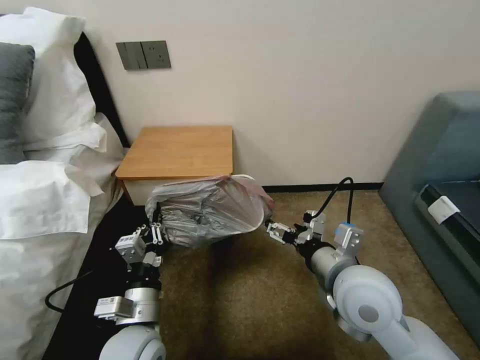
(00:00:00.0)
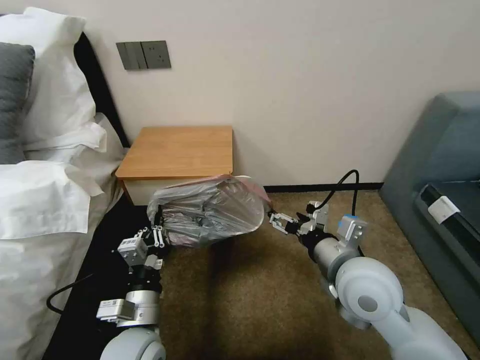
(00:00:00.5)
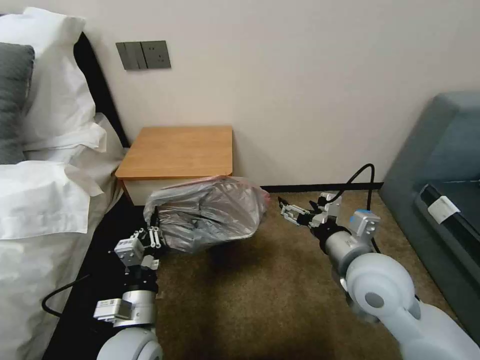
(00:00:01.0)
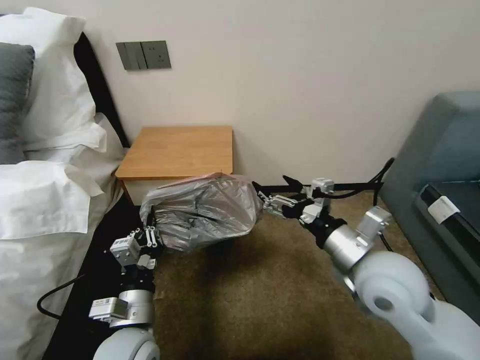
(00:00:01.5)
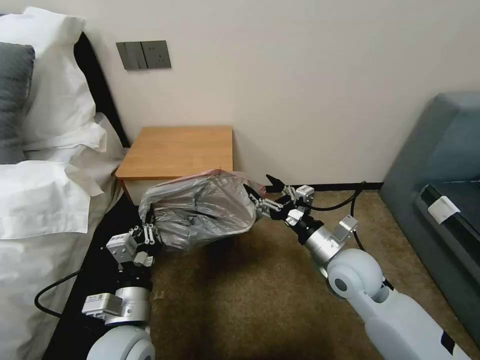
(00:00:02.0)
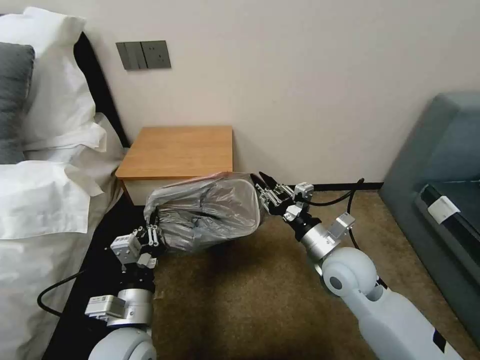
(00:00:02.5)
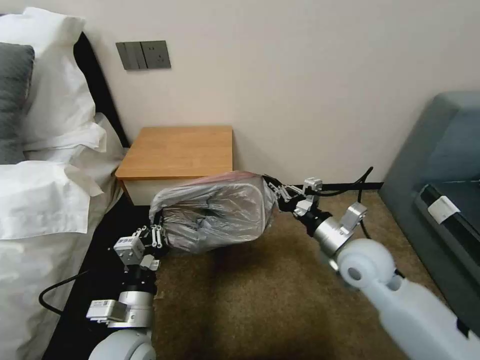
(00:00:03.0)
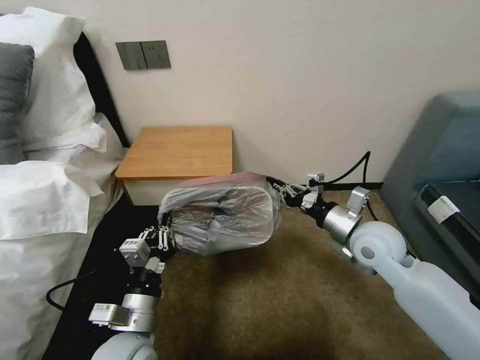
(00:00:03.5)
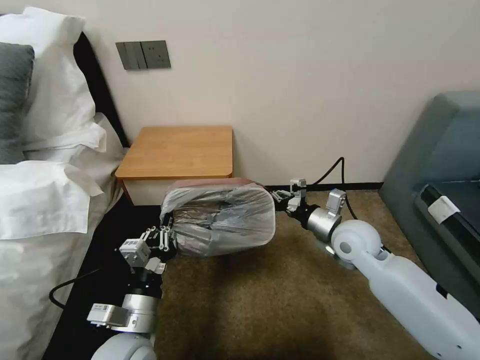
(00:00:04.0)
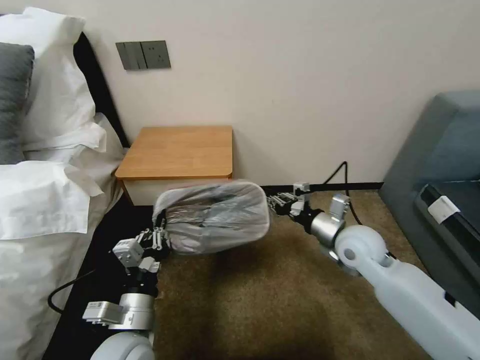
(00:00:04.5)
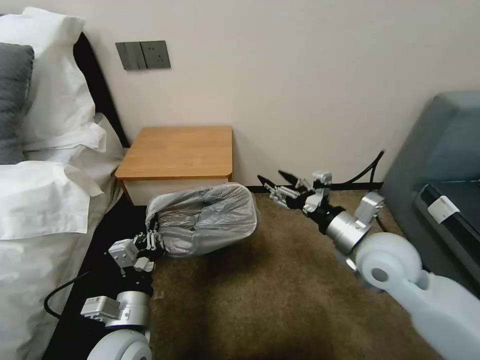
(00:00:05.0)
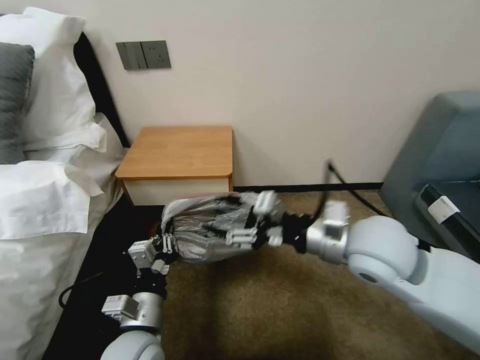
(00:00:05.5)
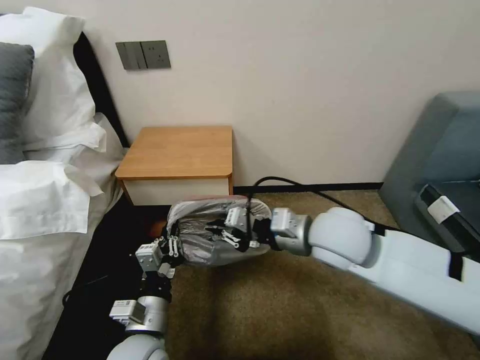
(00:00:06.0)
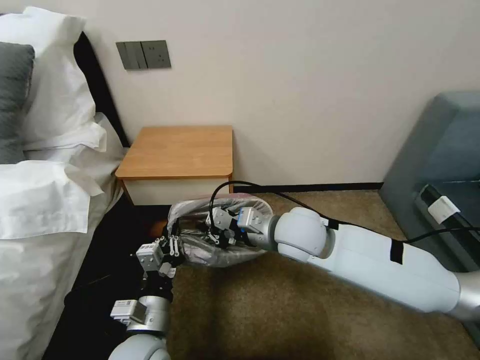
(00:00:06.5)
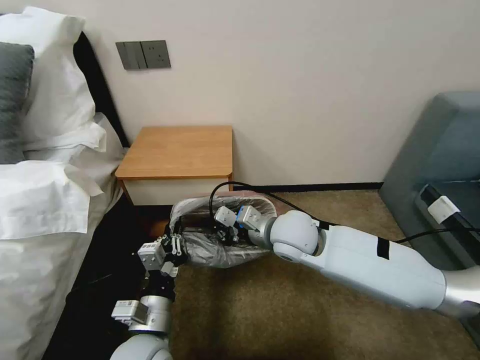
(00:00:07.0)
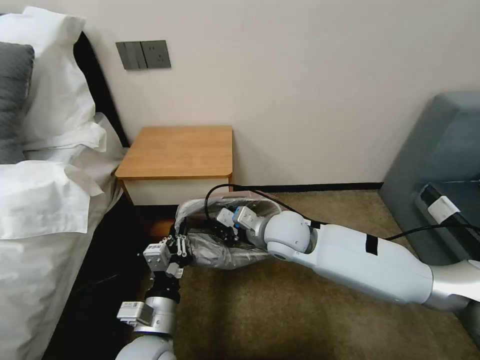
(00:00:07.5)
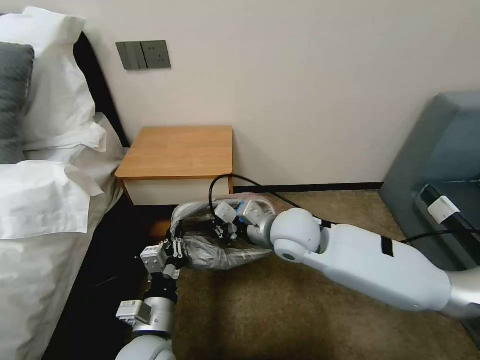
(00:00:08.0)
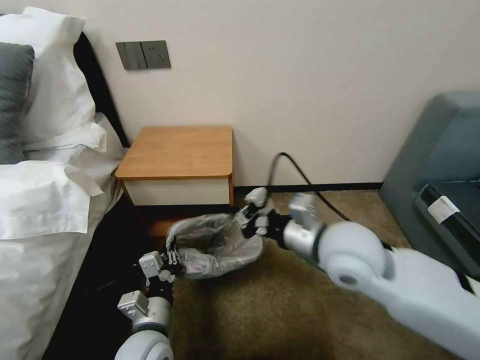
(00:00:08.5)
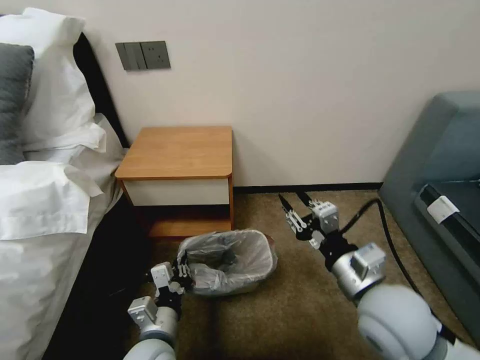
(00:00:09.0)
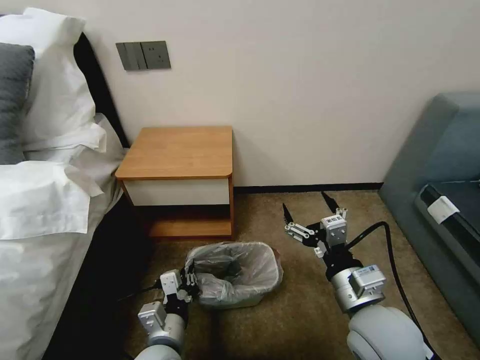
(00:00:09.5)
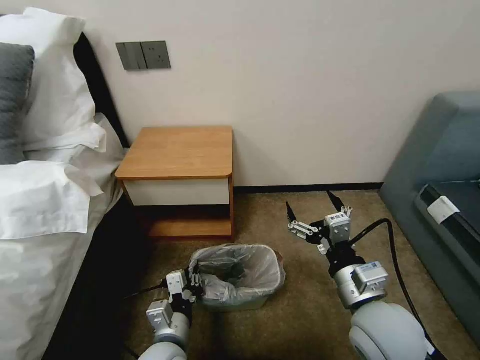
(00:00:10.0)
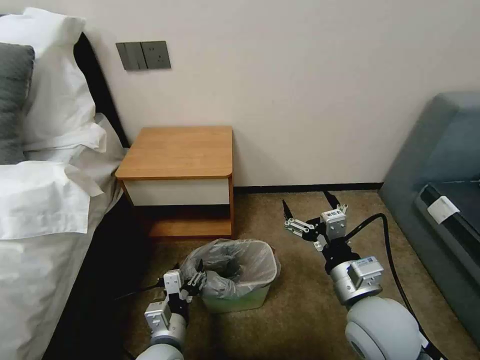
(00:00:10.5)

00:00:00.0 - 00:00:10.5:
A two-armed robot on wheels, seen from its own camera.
Task of the whole recording: Pick up the garbage bag from the table and place it over the trash can.
00:00:00.0 - 00:00:02.0: The right gripper is displaced forward and downward by roughly 10 cm.
00:00:02.0 - 00:00:04.0: The right gripper moves forward, some 5 cm, and closes its fingers.
00:00:04.0 - 00:00:06.5: The right gripper moves to the left and upward, roughly 15 cm, and opens, then closes once more.
00:00:06.5 - 00:00:08.5: The right gripper shifts some 10 cm to the right and backward.
00:00:08.5 - 00:00:10.5: The right gripper shifts some 15 cm backward and downward, and opens up. The left gripper opens its fingers.

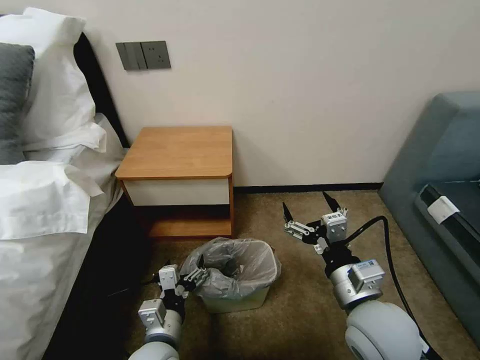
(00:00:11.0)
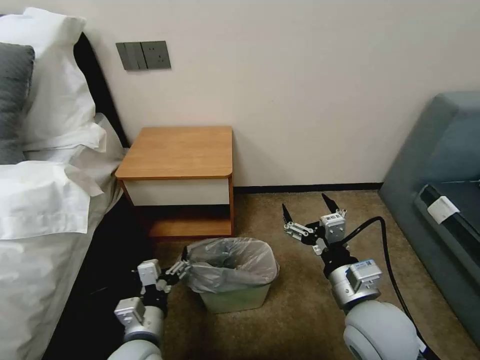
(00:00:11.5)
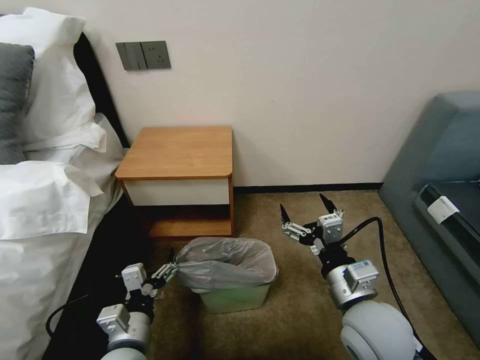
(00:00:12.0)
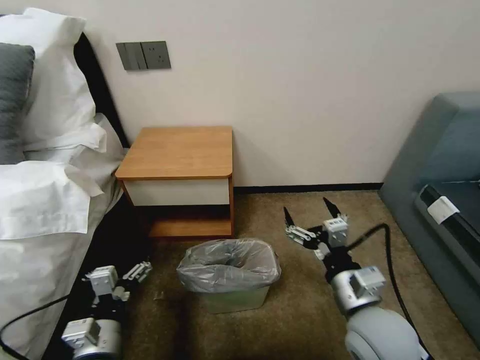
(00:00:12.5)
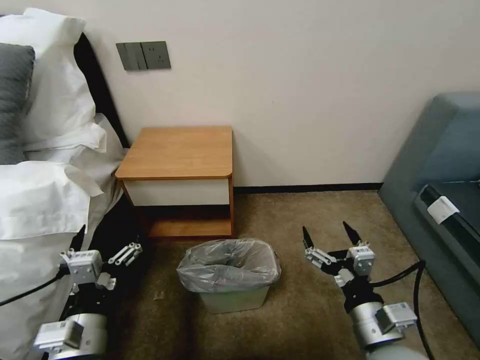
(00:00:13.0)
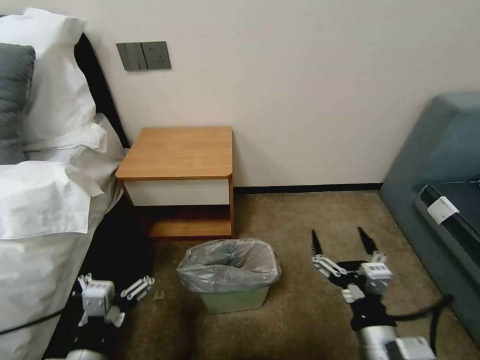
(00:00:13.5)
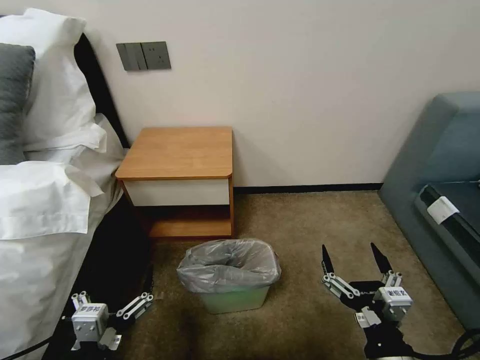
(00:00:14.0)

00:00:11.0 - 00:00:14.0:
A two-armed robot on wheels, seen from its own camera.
Task of the whole recording: Pick up the garbage bag from the table and place it over the trash can.
00:00:11.0 - 00:00:12.5: The left gripper moves to the left, roughly 10 cm.
00:00:12.5 - 00:00:14.0: The left gripper moves backward and upward, approximately 10 cm; the right gripper moves backward, some 15 cm.
